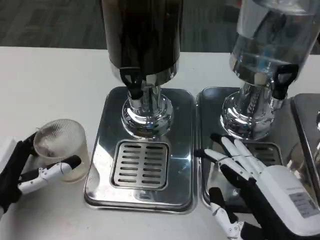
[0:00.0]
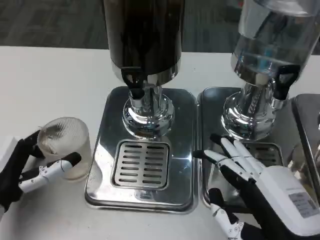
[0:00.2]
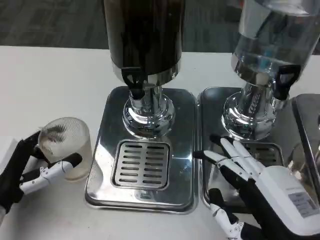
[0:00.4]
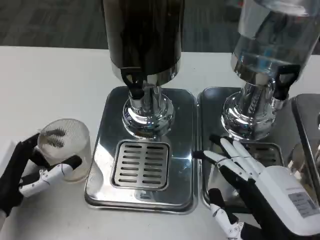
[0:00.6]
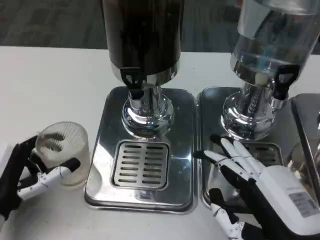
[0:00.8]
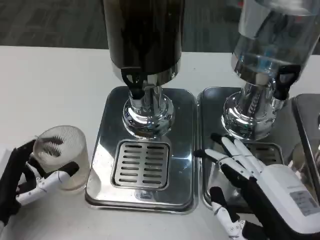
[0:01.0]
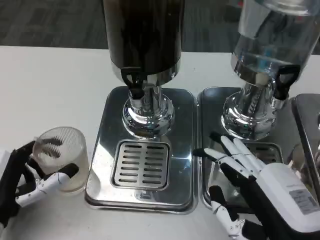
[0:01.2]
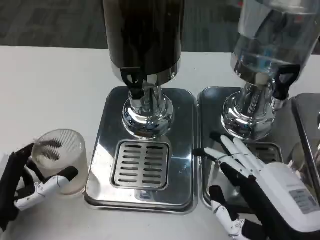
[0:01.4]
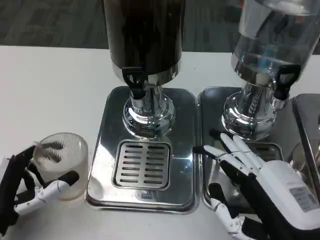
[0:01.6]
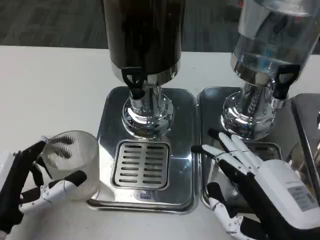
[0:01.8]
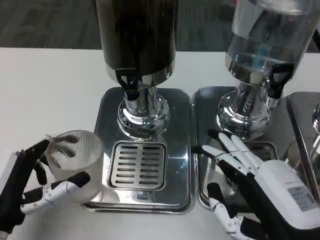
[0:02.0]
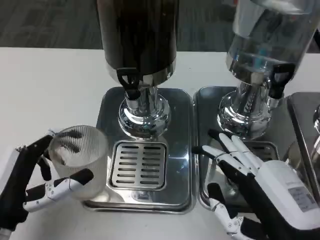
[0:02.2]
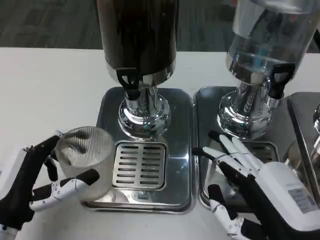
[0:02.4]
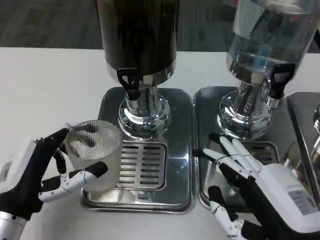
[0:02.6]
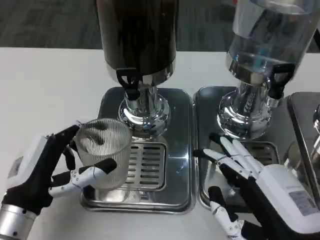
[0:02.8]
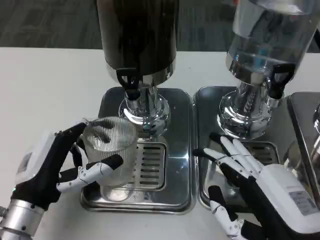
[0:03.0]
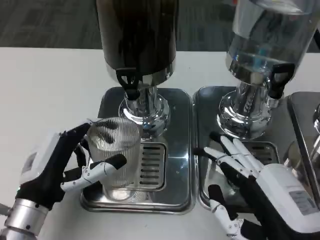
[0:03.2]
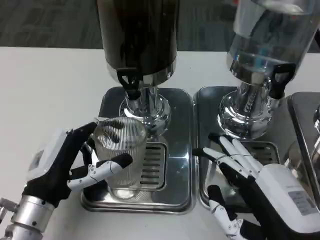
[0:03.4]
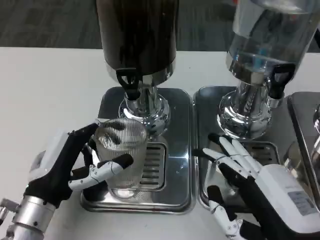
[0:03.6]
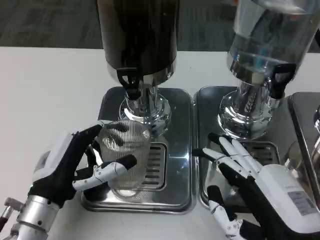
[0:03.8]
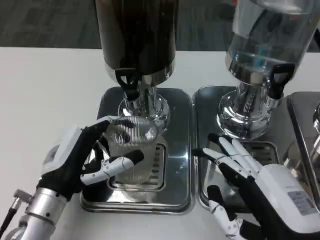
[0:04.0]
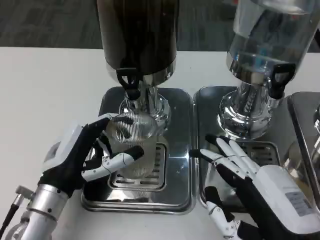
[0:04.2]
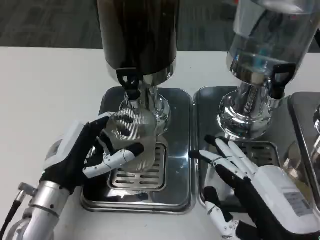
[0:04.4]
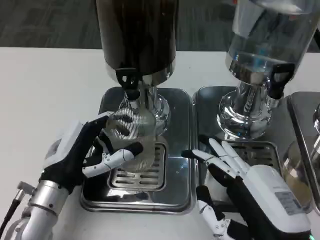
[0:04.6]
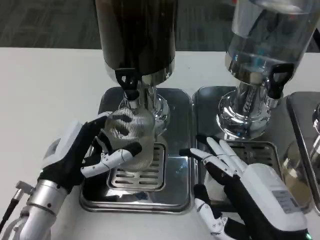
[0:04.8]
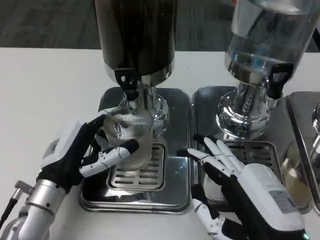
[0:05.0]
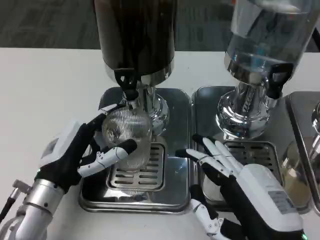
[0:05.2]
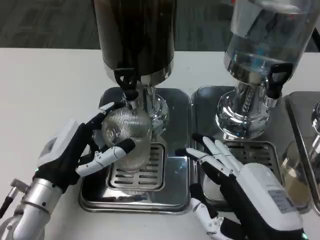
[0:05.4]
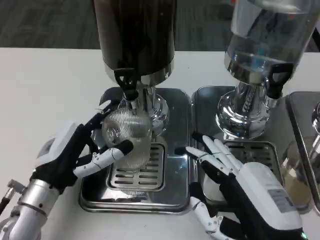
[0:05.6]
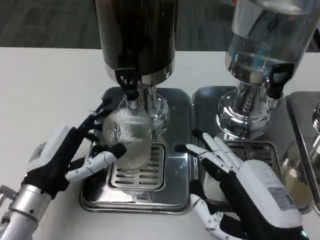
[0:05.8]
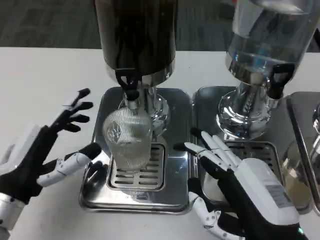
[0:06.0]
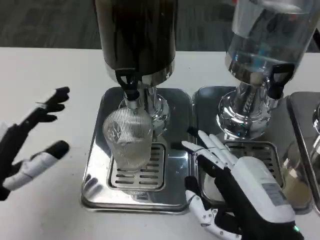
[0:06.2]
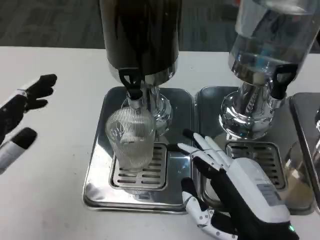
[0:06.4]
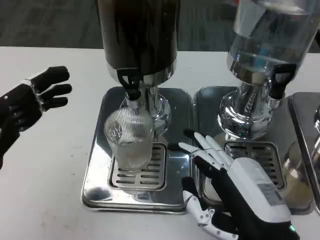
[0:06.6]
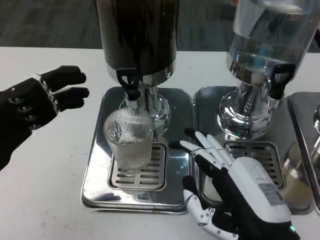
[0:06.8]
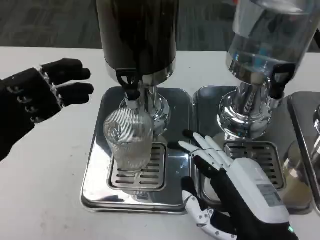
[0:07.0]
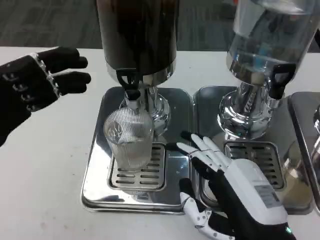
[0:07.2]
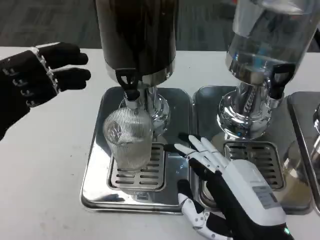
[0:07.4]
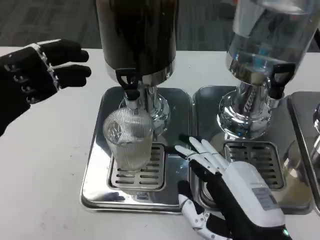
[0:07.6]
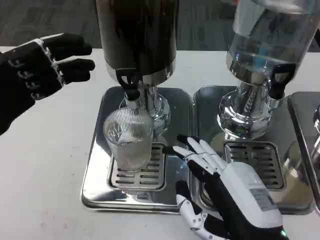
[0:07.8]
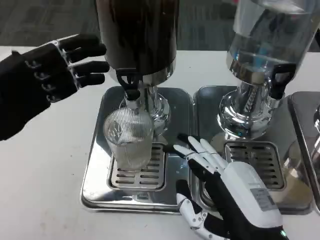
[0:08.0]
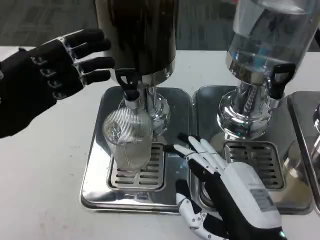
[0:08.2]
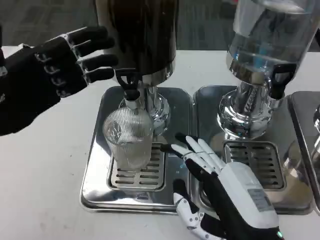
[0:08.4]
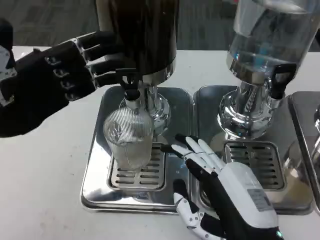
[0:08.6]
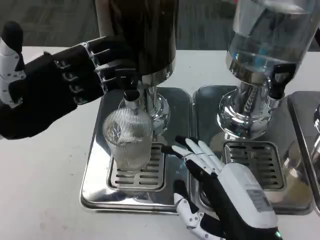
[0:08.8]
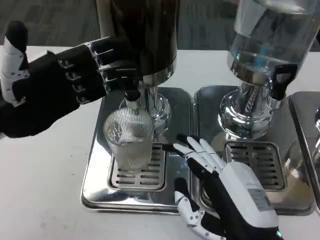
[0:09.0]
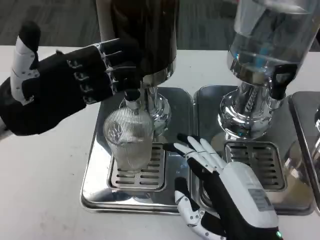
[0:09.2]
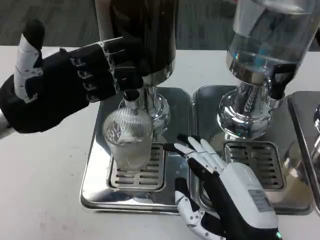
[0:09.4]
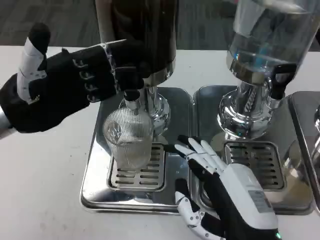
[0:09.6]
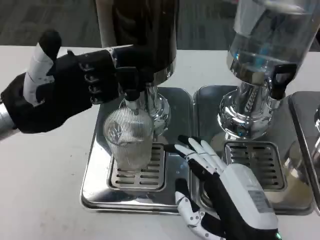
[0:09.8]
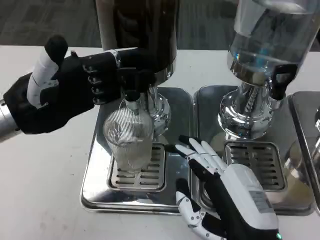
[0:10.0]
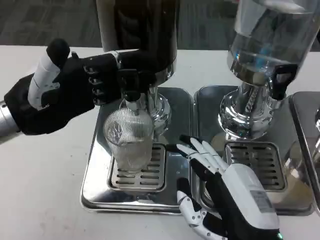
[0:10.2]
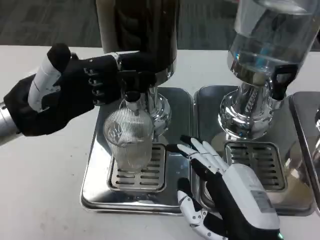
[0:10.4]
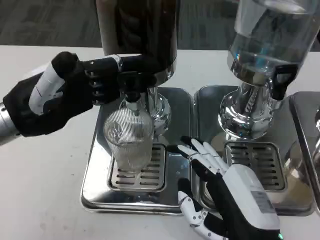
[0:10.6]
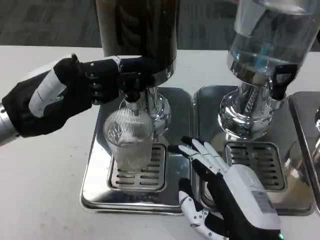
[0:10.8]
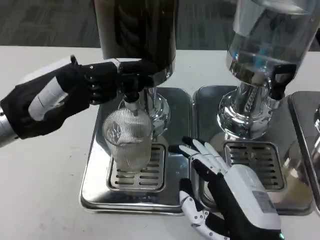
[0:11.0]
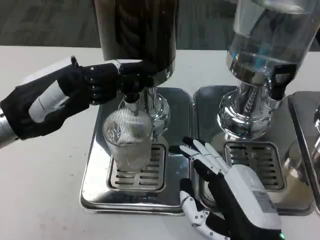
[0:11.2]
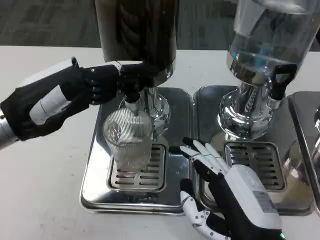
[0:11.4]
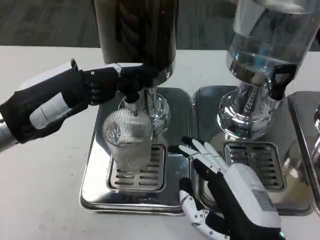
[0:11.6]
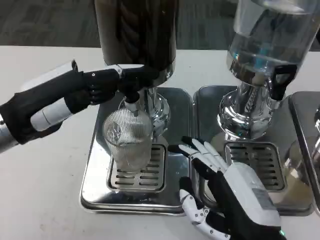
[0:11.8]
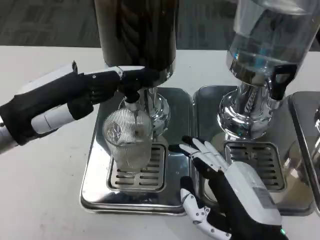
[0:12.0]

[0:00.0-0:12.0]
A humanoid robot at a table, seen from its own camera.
Task of the whole recording: Grasp the cup under the faucet to collect the drink, then remove the cup.
0:01.6 to 0:03.0: The left hand moves about 5 cm.
0:03.0 to 0:04.4: The hands move only a little.
0:04.4 to 0:06.0: The left hand moves to the left, some 5 cm.
0:06.0 to 0:07.6: The left hand is displaced upward and to the left by about 15 cm.
0:07.6 to 0:09.0: The left hand moves approximately 5 cm.
0:09.0 to 0:10.4: The hands move only a little.

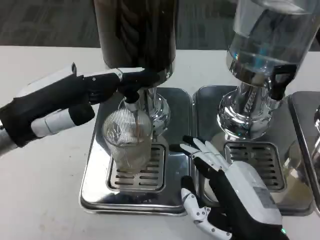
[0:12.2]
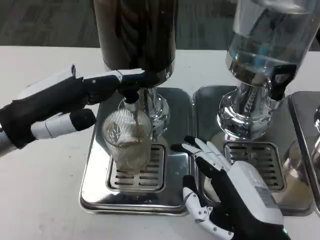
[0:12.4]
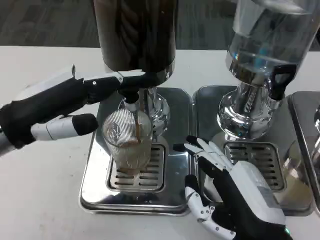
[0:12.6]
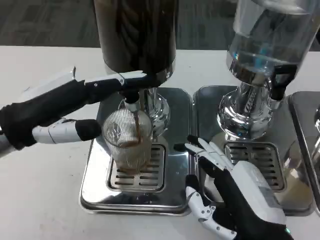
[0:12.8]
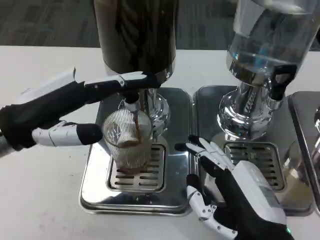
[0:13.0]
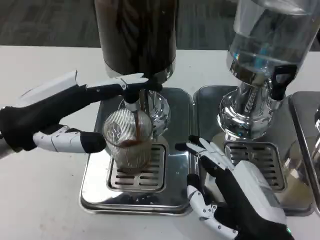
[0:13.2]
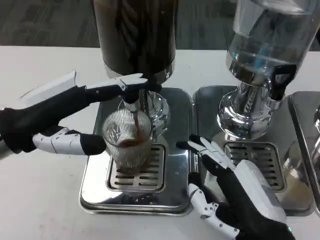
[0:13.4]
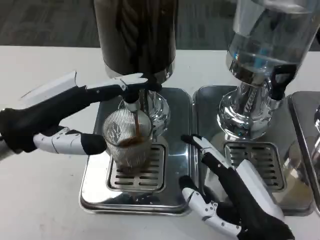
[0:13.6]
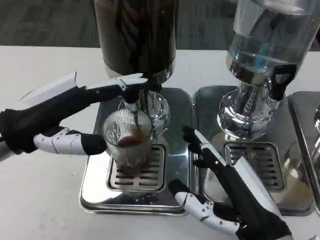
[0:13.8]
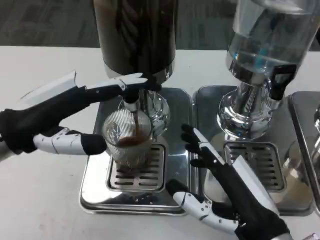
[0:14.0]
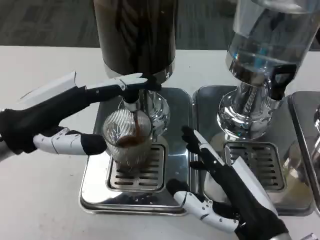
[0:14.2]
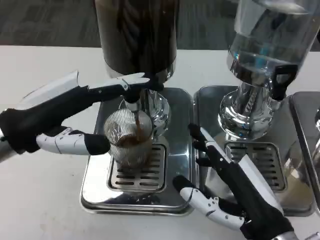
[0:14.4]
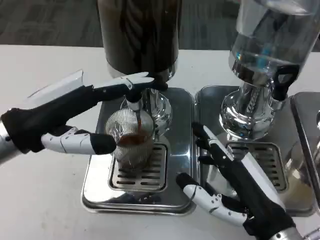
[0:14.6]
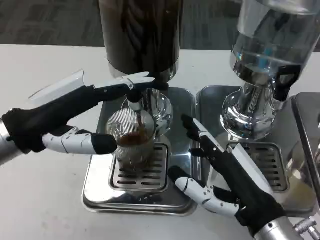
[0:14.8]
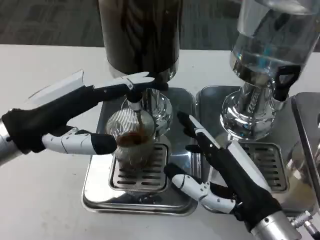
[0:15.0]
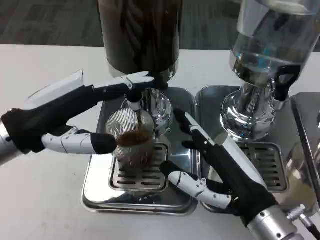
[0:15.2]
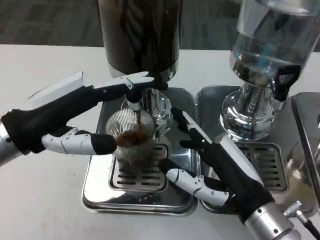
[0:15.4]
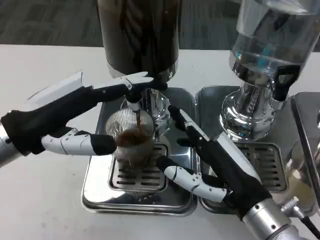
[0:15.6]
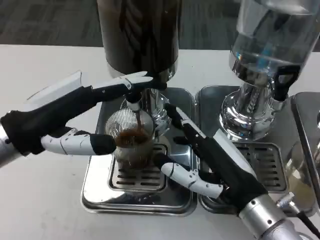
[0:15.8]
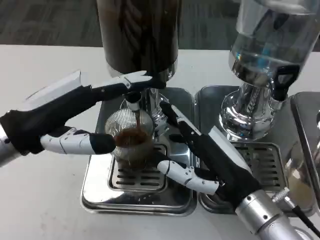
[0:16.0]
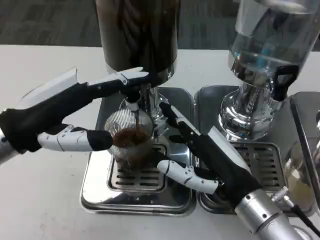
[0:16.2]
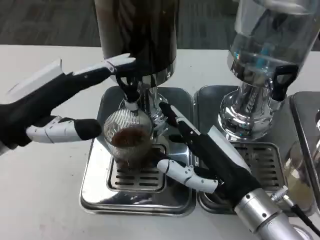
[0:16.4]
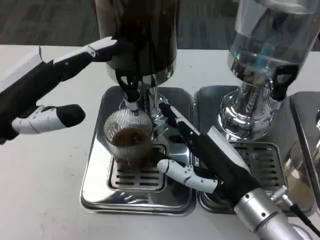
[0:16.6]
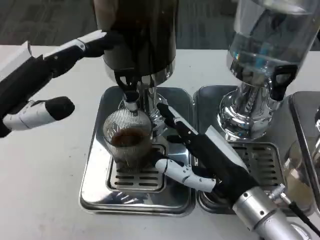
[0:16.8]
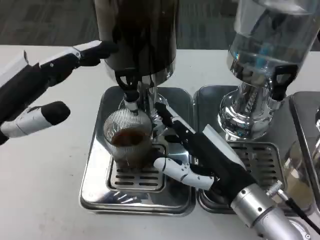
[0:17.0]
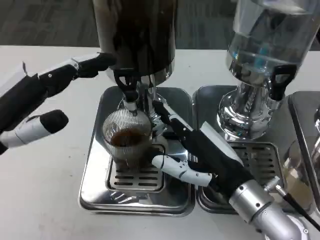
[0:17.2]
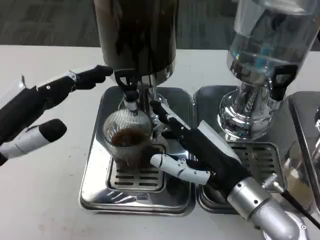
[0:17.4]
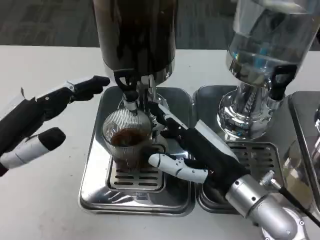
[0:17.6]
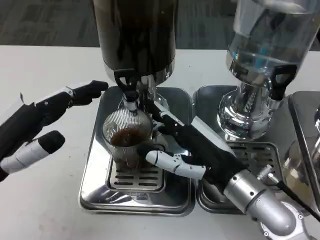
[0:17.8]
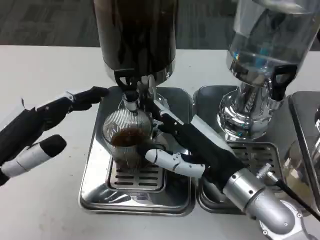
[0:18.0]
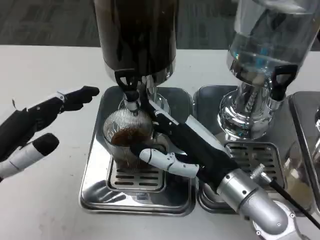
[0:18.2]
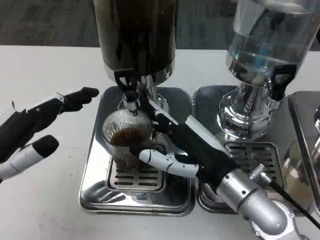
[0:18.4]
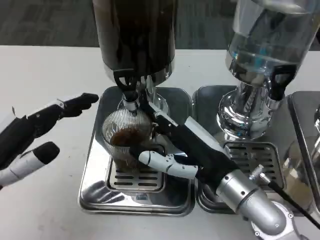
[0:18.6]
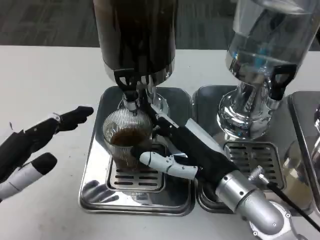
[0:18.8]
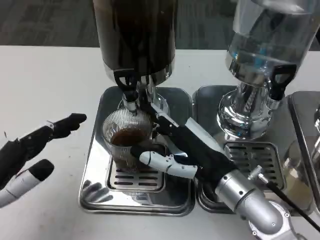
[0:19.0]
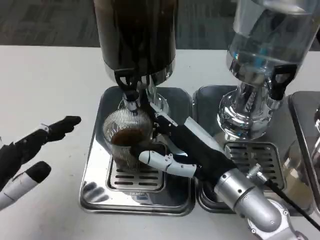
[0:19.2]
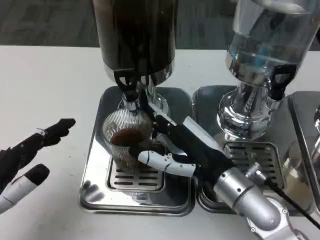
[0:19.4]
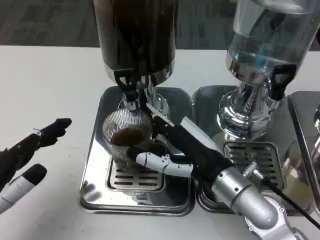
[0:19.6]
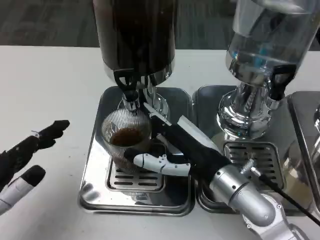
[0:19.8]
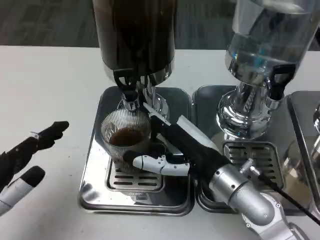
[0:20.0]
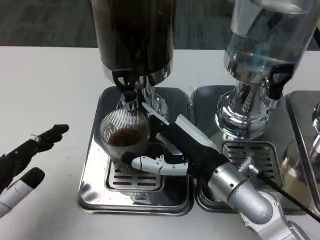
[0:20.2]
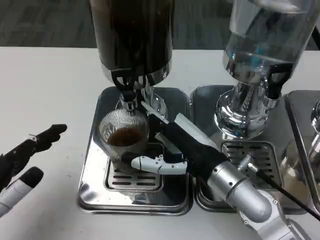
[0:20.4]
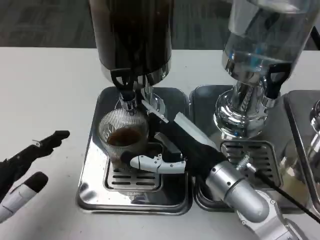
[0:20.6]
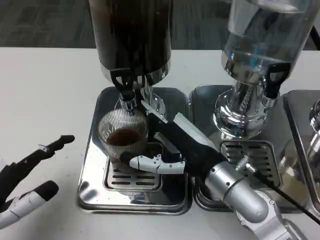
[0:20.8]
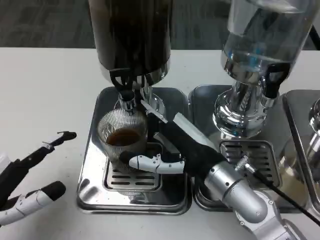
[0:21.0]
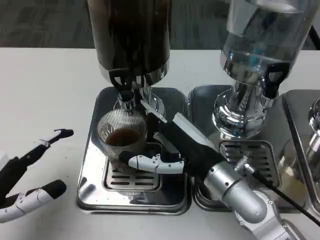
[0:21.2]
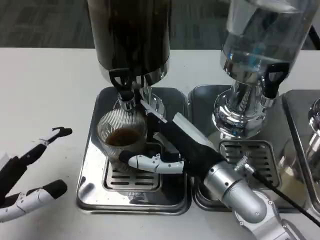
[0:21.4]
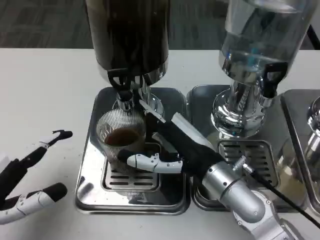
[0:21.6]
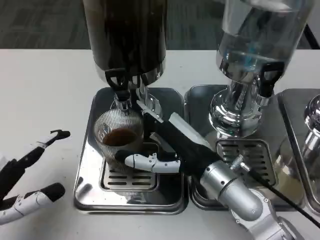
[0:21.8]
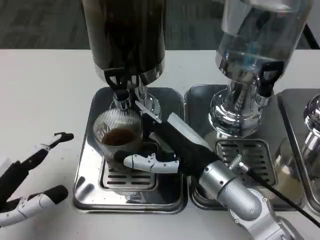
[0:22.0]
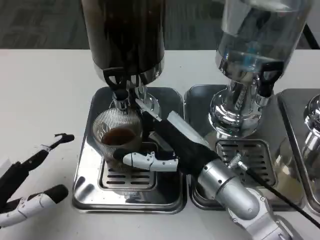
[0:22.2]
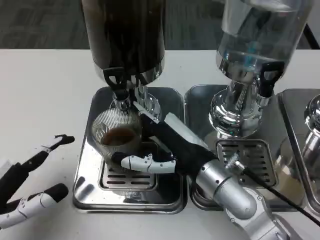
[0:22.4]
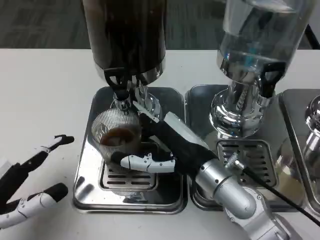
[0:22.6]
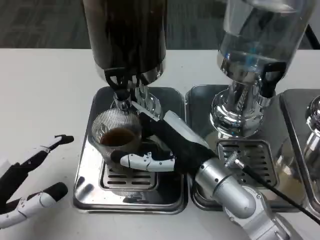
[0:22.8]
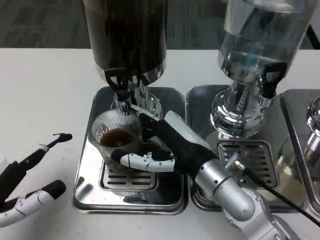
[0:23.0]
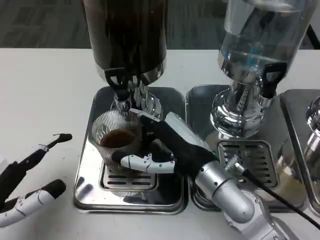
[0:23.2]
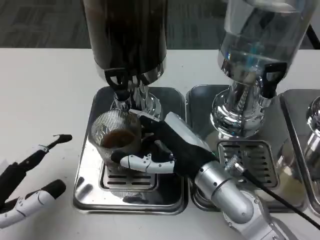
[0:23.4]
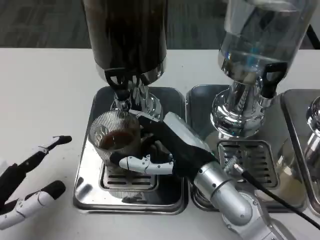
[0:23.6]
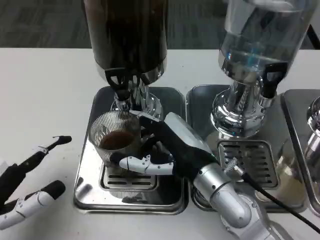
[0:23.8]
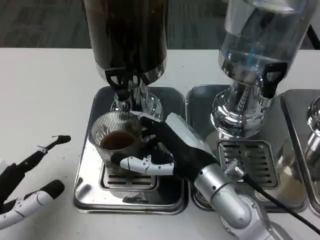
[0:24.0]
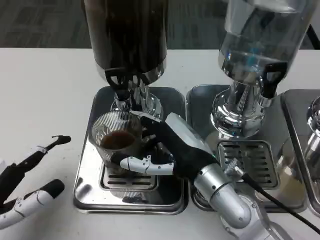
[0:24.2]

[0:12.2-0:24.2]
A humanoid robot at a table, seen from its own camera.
Task of the whole recording: Grasp the cup under the faucet to collect the drink, then remove the cup.
0:12.2 to 0:13.8: The hands make only small movements.
0:16.6 to 0:18.2: The left hand moves downward, about 5 cm.
0:18.2 to 0:19.8: The left hand shifts by roughly 5 cm.
0:22.6 to 0:24.2: The hands move only a little.
